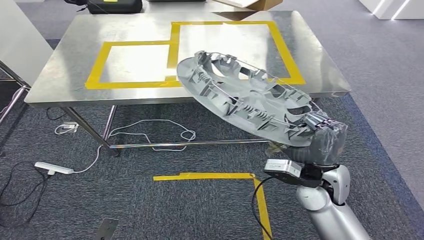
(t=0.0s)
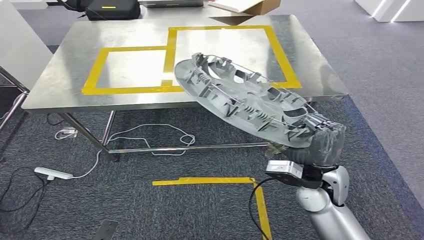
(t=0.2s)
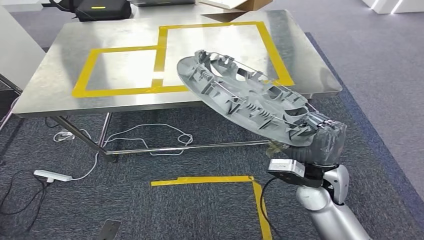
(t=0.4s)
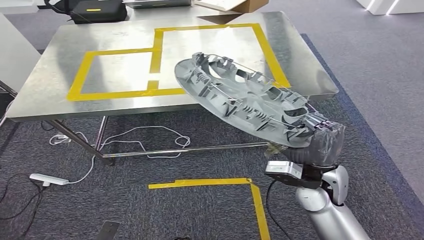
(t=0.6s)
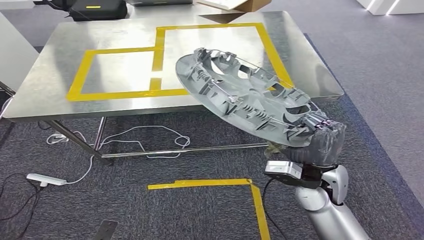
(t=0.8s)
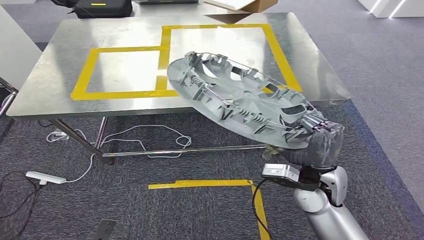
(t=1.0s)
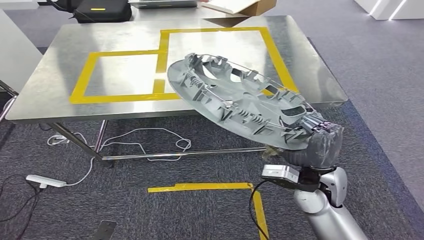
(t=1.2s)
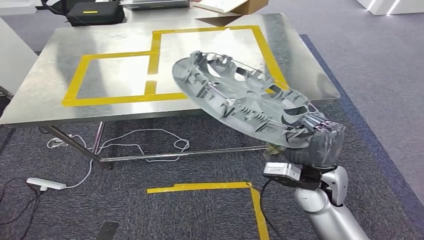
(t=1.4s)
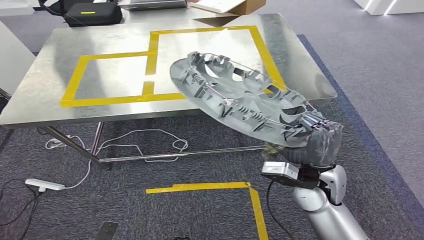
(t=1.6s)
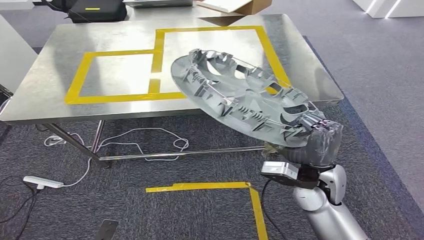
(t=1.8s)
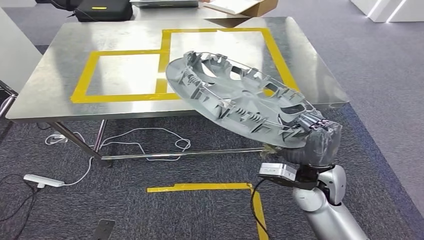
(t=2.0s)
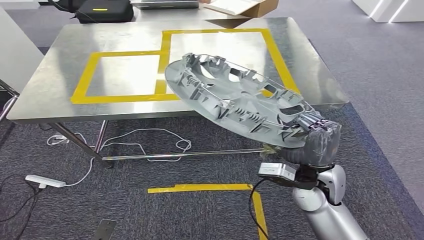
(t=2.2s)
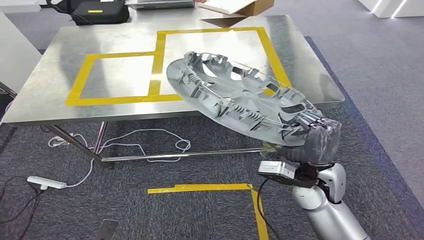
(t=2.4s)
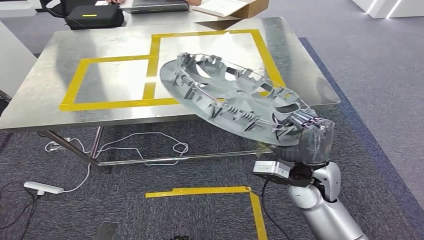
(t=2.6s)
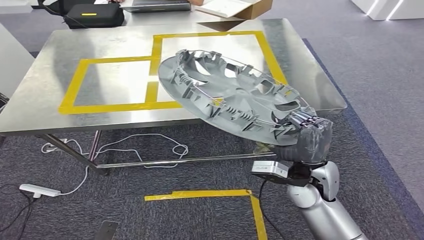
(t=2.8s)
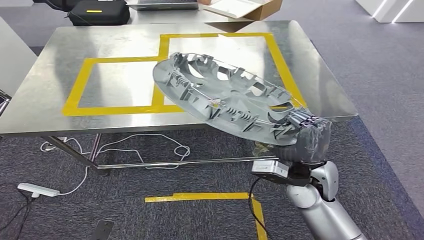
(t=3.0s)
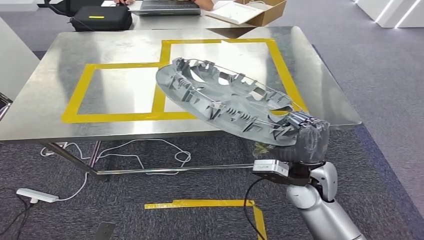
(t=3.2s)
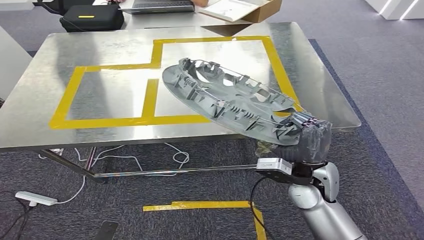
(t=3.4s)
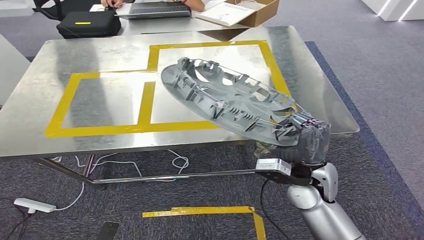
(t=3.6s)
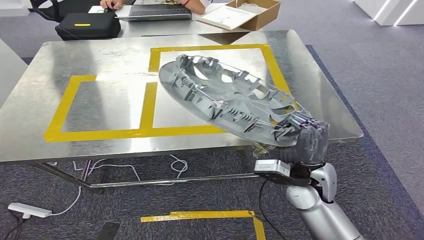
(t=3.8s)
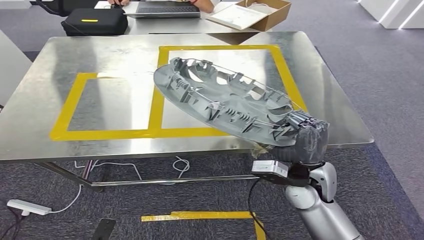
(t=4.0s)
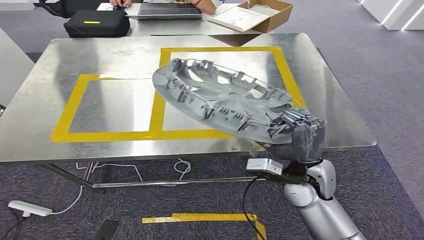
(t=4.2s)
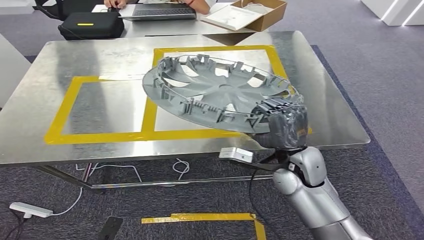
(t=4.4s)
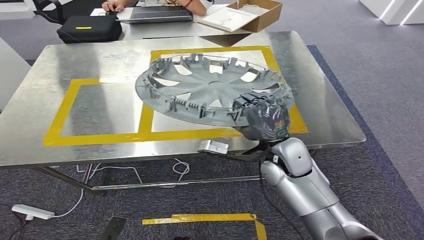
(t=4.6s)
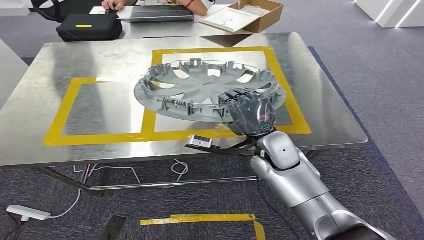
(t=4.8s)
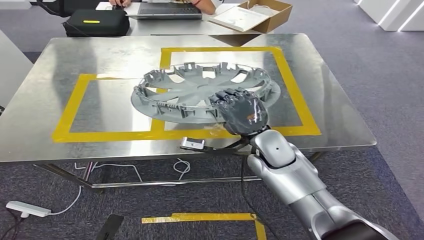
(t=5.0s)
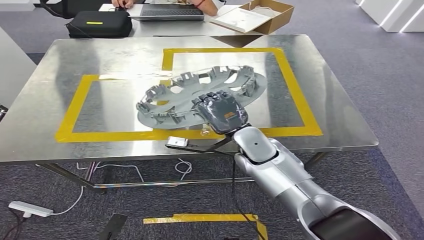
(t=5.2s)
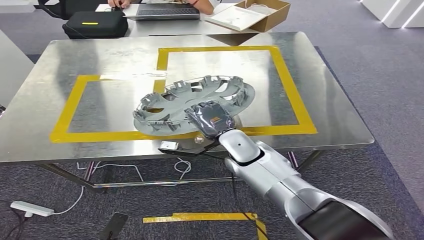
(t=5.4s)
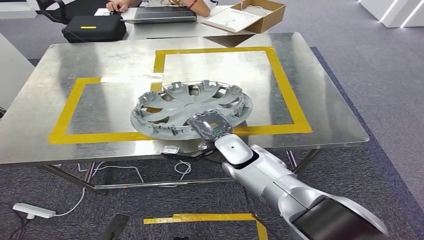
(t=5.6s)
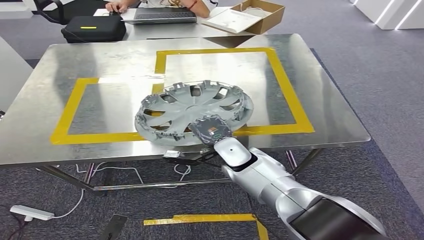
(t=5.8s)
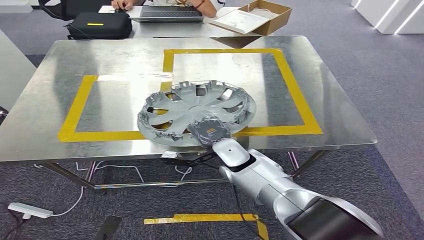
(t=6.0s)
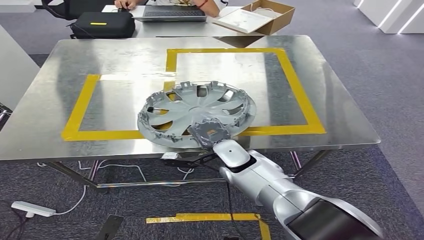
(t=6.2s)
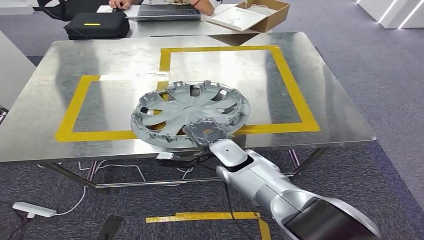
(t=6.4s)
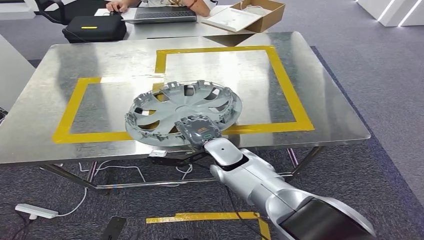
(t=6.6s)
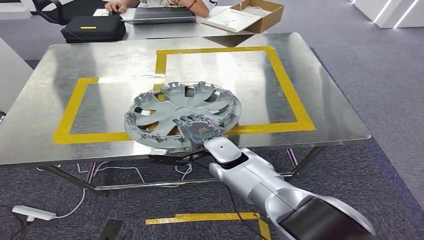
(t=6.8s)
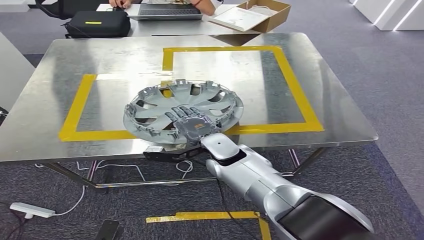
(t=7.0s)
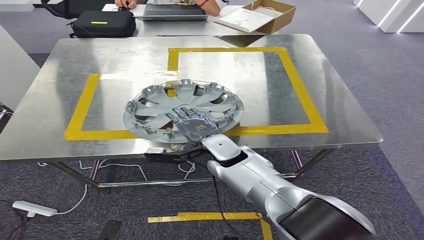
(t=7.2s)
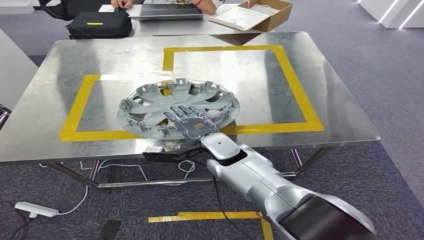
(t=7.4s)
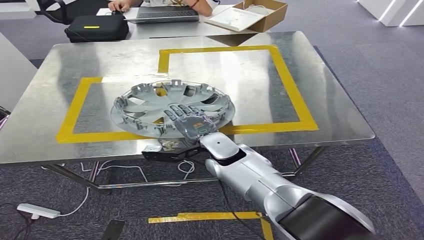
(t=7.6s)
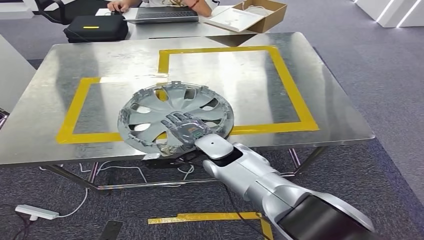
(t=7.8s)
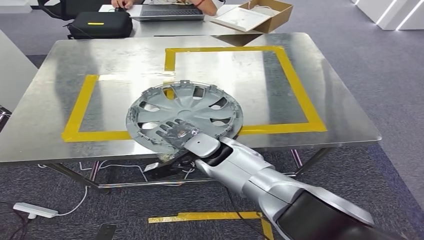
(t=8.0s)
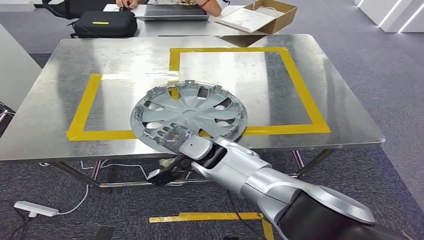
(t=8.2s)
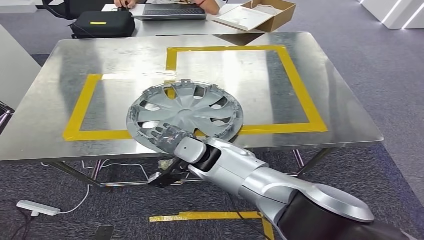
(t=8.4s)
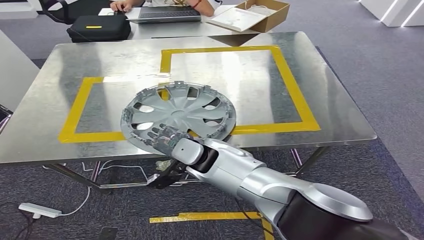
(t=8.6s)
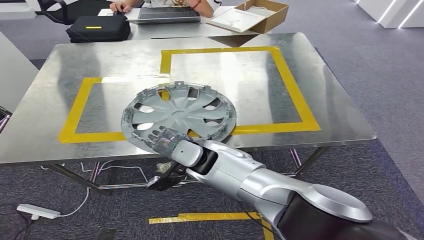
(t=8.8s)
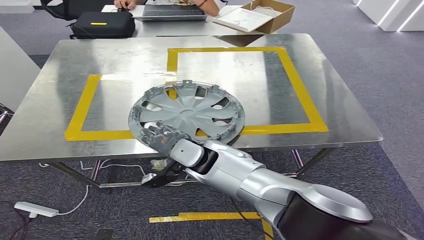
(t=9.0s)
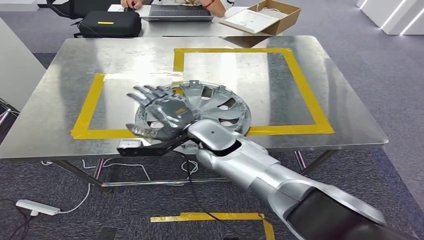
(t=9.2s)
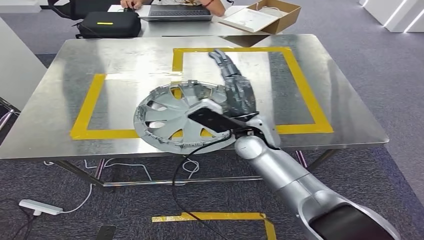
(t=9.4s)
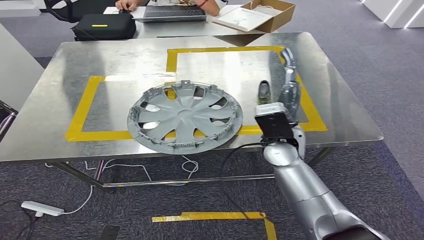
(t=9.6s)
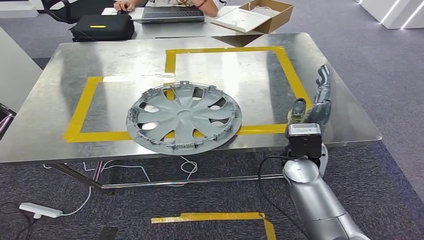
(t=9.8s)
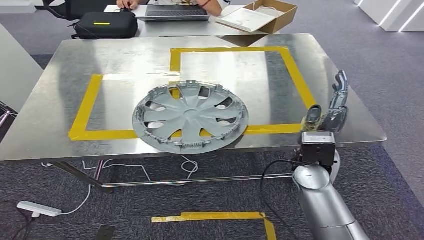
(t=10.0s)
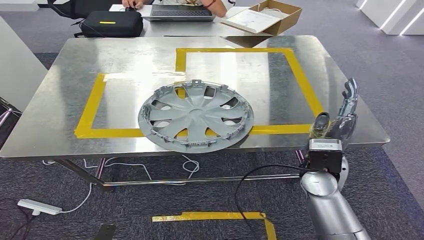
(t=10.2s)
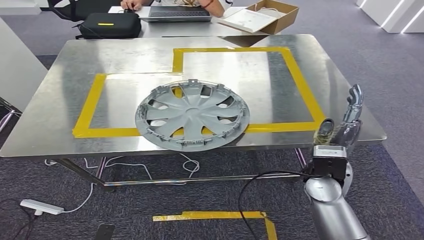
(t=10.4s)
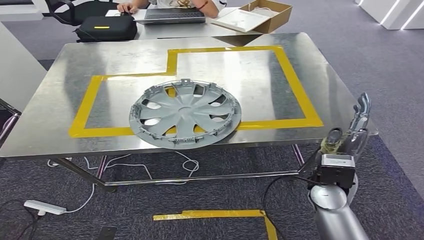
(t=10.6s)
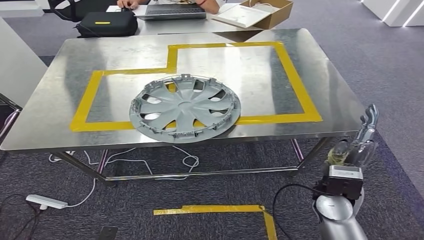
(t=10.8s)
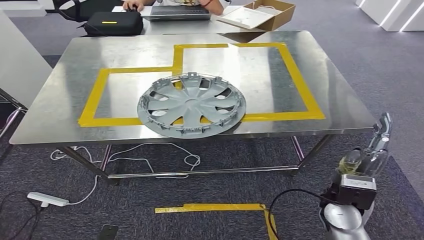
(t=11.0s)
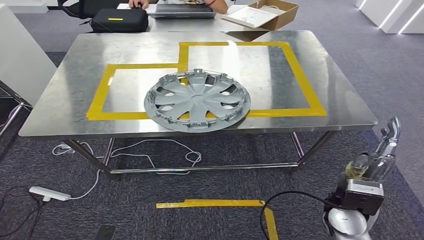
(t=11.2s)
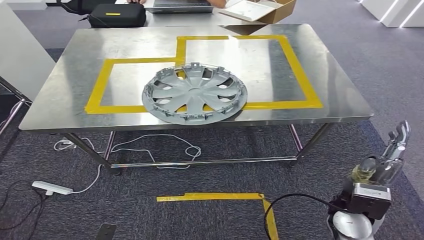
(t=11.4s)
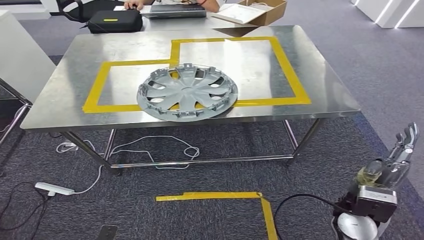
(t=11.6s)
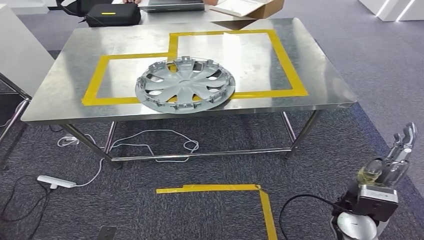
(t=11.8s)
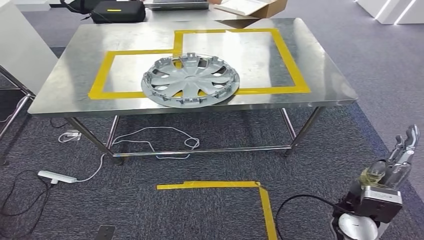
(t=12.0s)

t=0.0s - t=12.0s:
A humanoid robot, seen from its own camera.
Step, t=0.0s - t=11.2s: Insert the small component into the corresponding slot on the workbench.

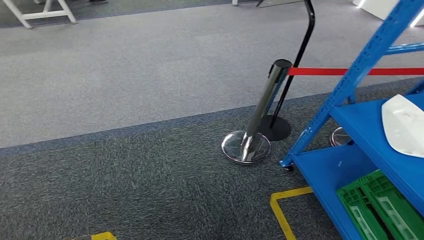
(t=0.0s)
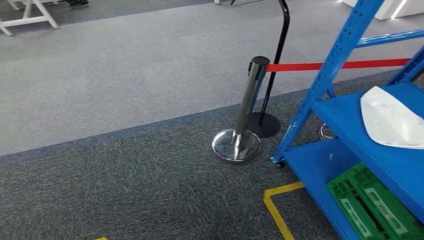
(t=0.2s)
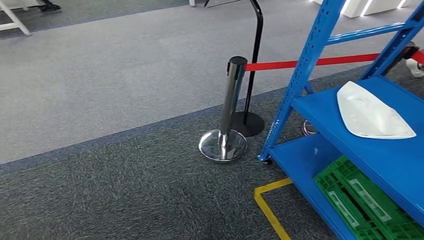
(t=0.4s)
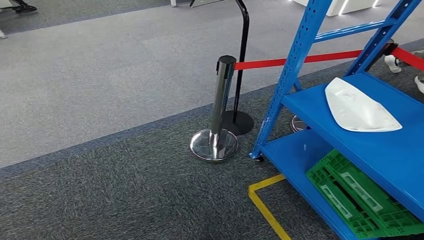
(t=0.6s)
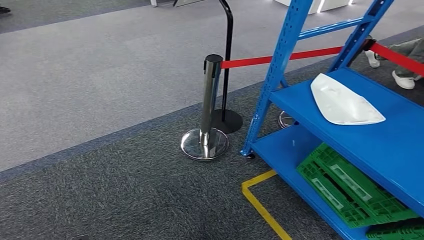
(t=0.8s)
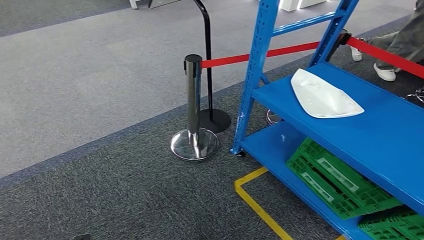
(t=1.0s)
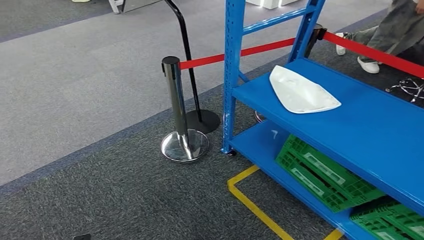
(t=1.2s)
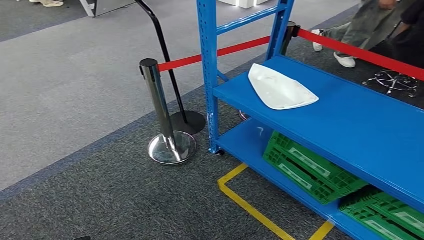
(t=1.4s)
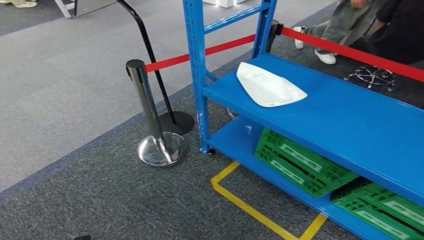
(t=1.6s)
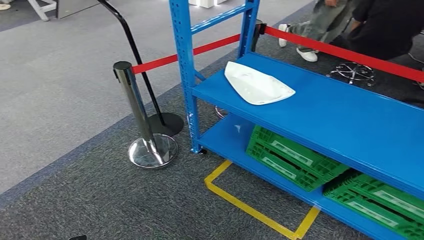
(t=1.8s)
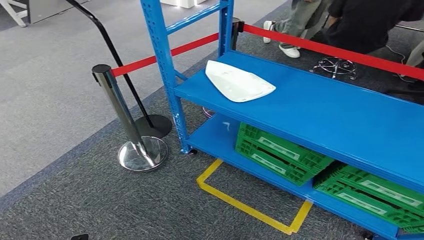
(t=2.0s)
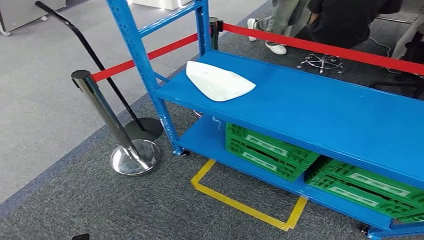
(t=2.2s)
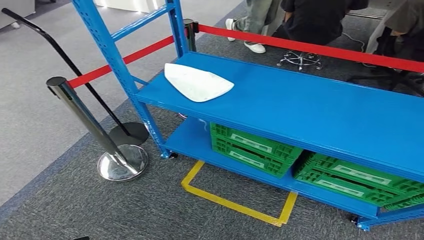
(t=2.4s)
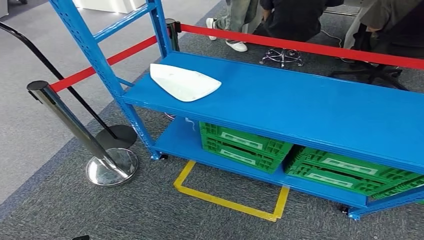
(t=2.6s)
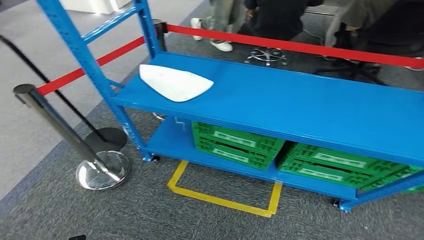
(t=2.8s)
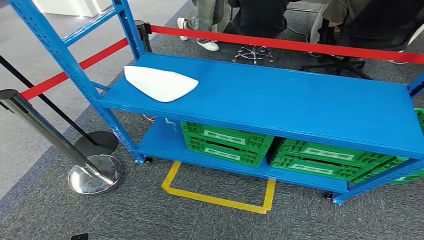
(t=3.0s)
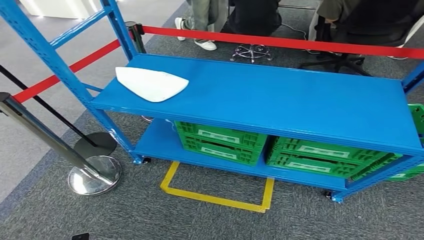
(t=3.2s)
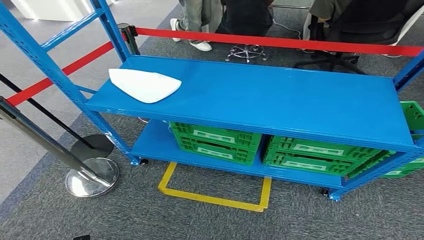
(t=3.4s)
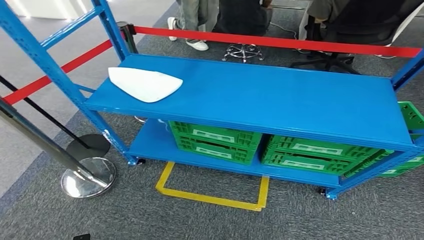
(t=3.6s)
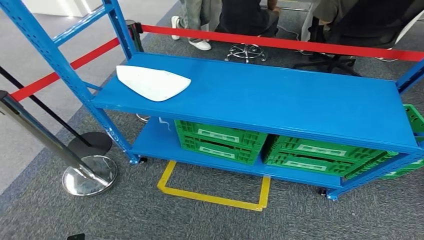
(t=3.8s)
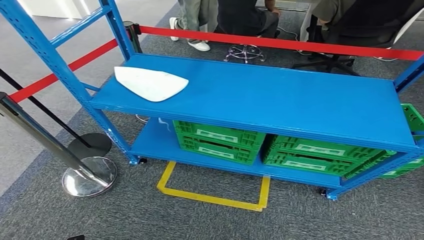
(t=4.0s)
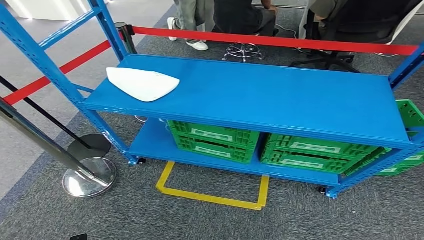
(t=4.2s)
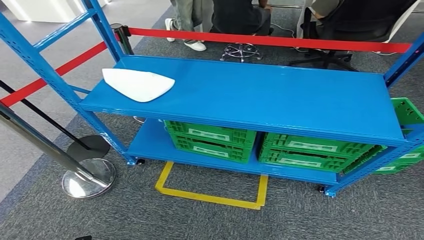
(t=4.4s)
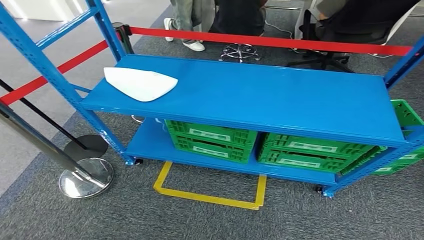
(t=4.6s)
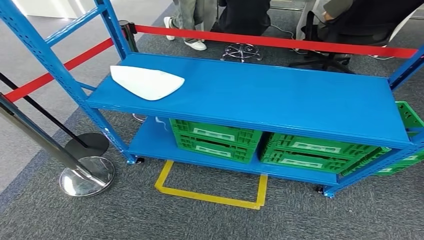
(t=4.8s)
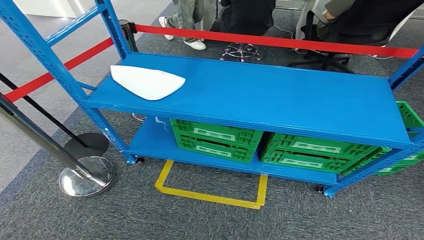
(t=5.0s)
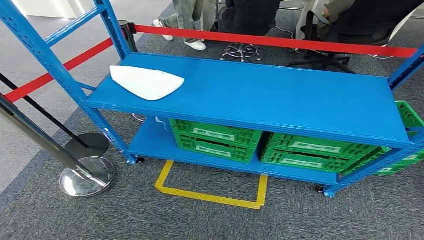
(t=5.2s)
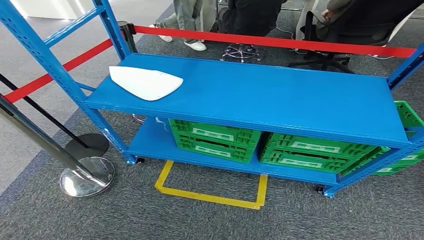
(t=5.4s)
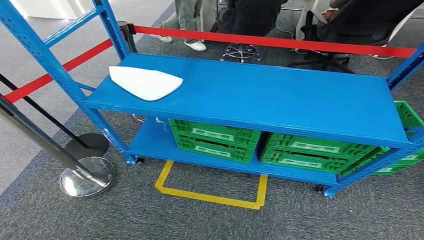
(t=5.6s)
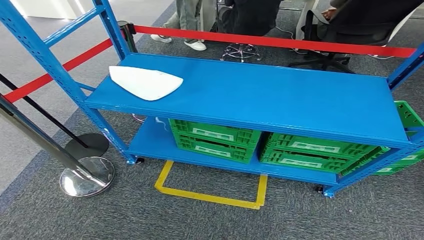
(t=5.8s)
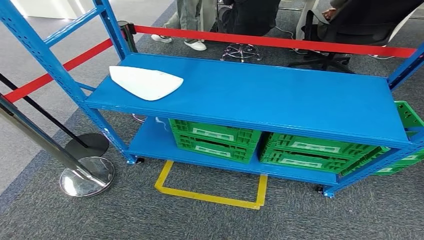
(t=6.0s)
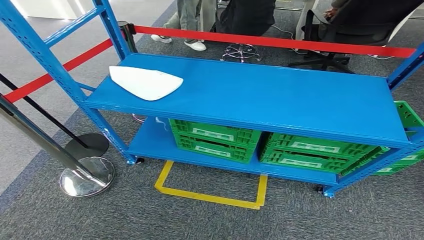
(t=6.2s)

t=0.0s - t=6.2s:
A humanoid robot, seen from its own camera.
Step, t=0.0s - t=6.2s: Return to the initial position at the workbench.
